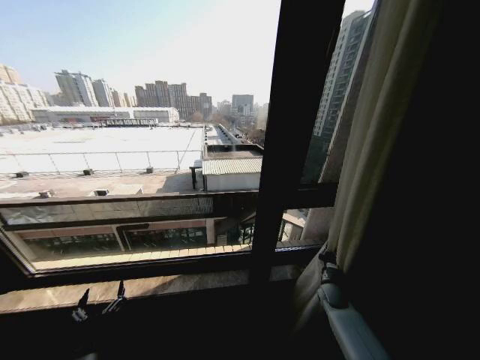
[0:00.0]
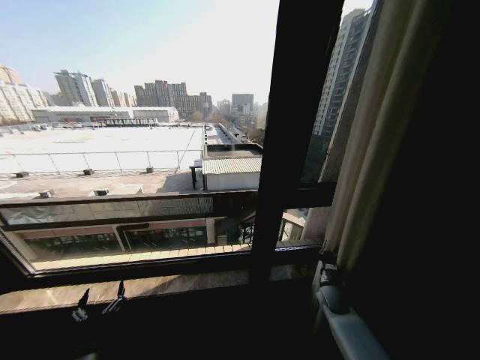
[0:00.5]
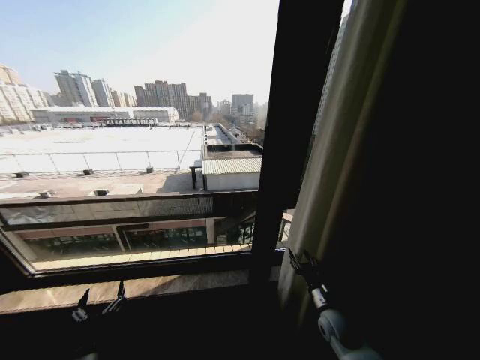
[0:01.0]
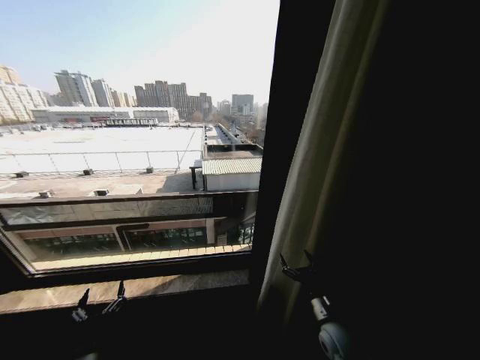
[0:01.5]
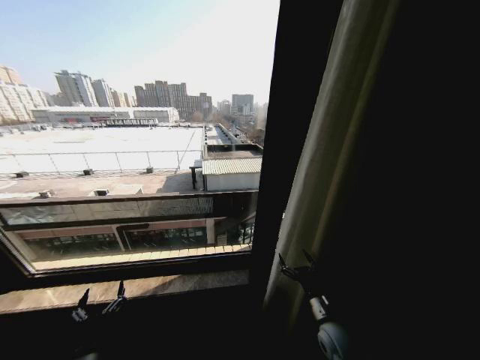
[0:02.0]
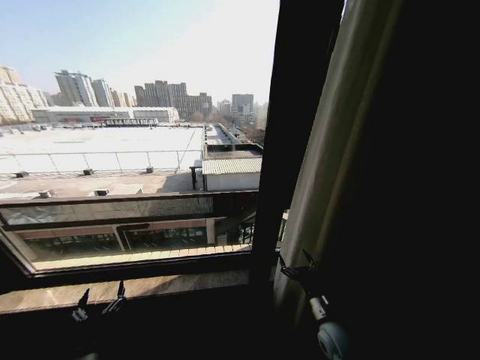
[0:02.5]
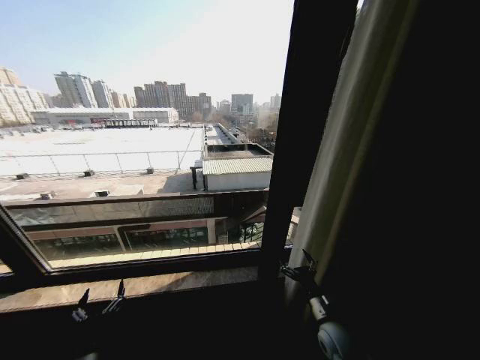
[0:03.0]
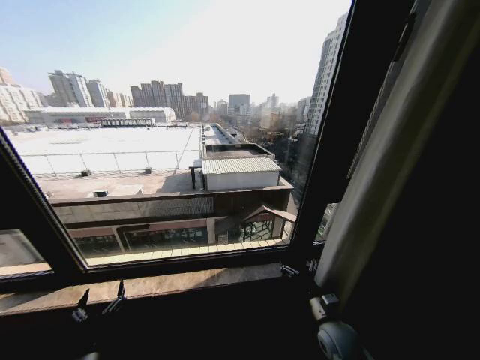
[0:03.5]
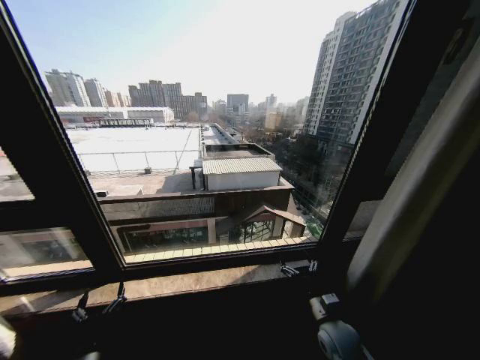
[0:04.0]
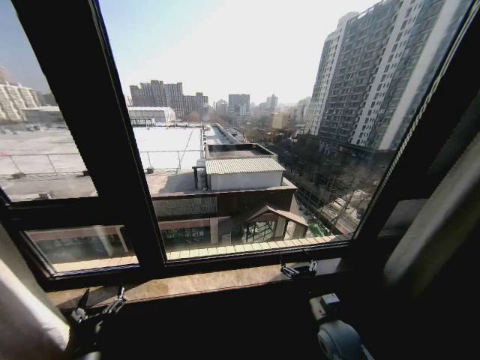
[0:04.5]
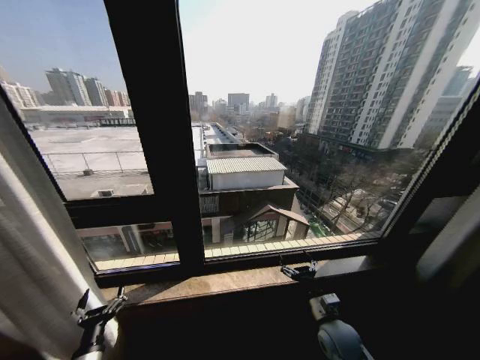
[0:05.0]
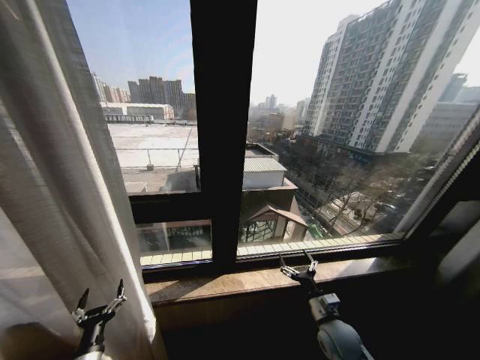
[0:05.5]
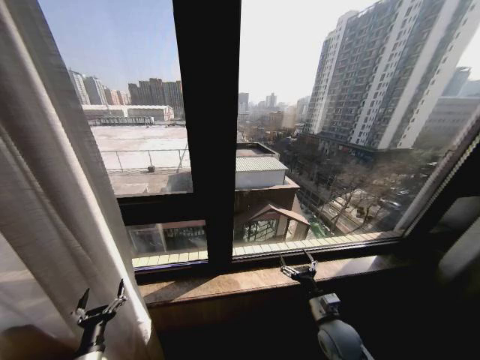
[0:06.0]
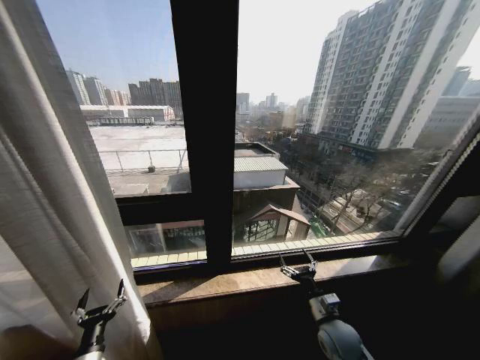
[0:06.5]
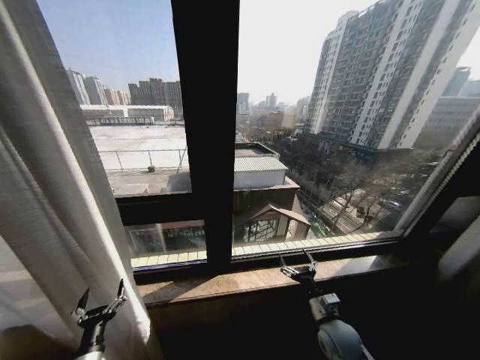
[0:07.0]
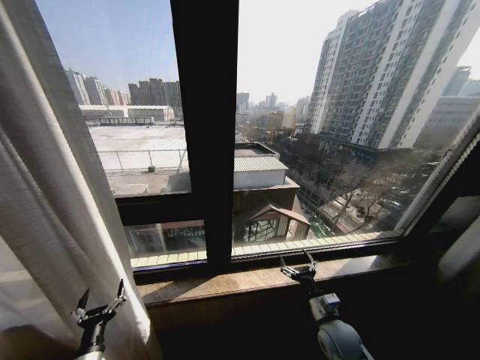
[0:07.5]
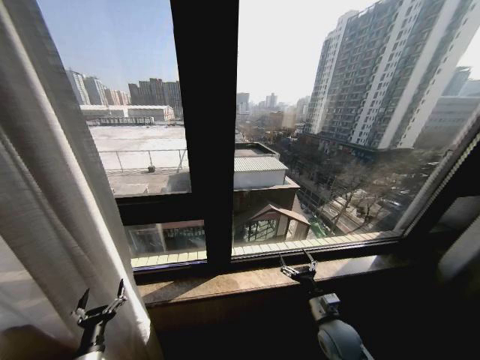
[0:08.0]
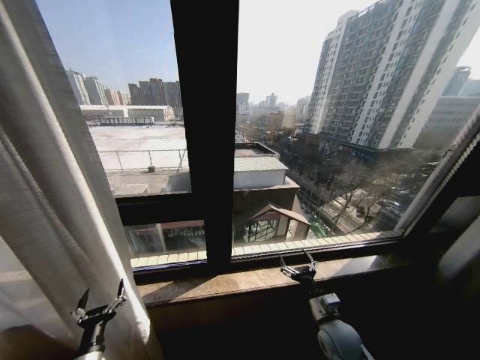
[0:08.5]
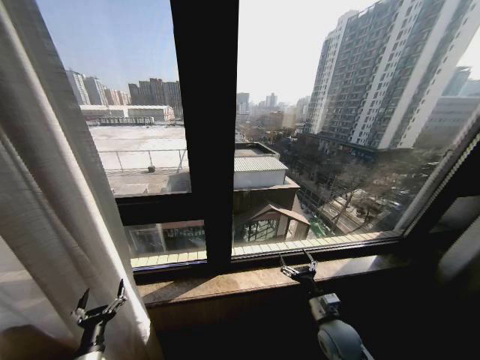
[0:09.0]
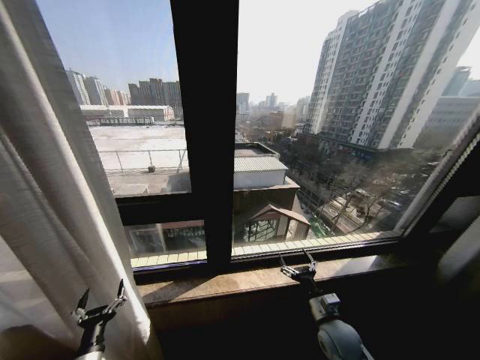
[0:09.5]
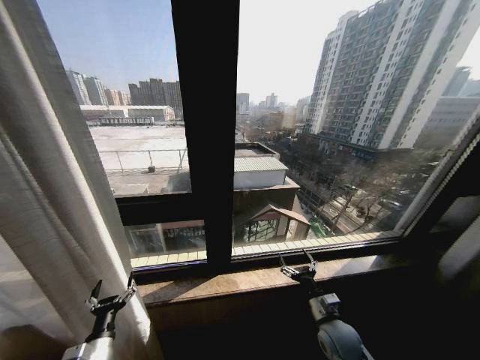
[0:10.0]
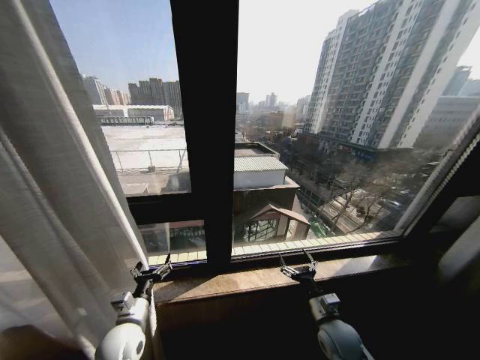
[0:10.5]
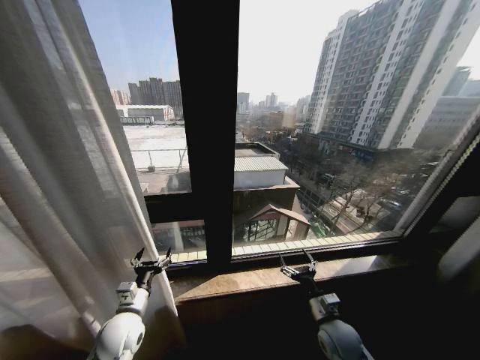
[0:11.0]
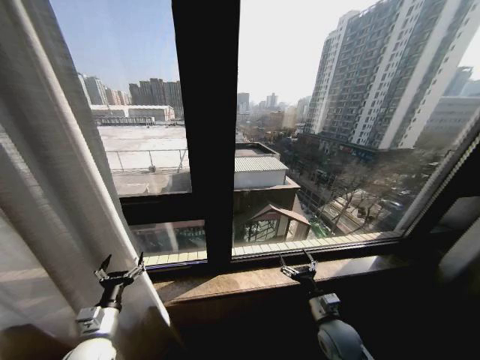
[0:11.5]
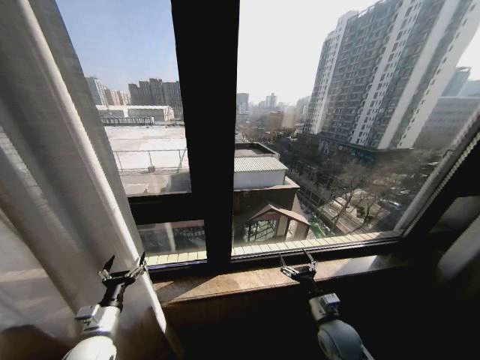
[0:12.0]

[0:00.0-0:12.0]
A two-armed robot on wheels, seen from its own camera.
Task of the whole recording: Open the curtains by pulling them apart, changing their state from closed to fully open.
0:00.0 to 0:02.0: The right gripper shifts about 20 cm backward, to the left and upward, and opens up.
0:06.0 to 0:08.0: Both grippers stay put.
0:08.0 to 0:10.0: The grippers stay close to where they were, moving slightly.
0:10.0 to 0:12.0: The left gripper moves upward, some 5 cm.

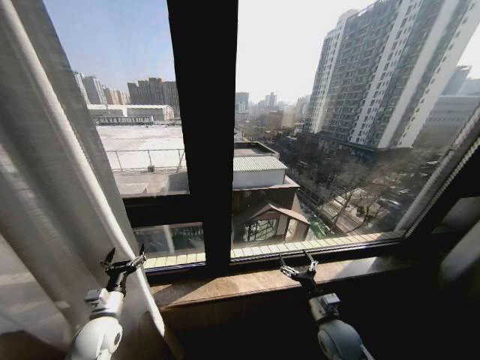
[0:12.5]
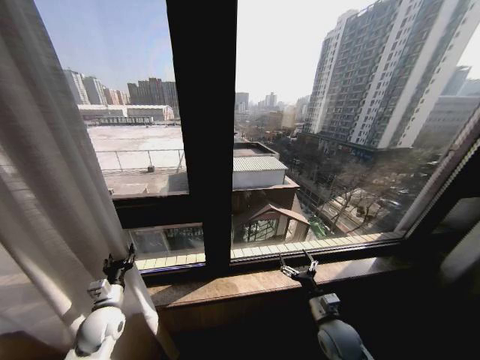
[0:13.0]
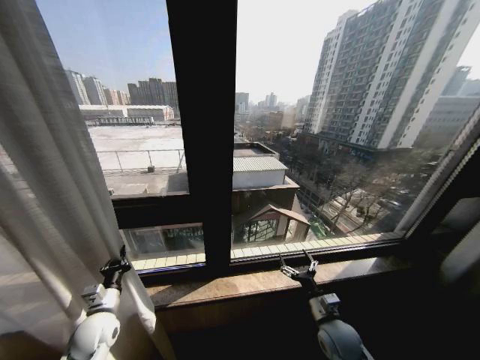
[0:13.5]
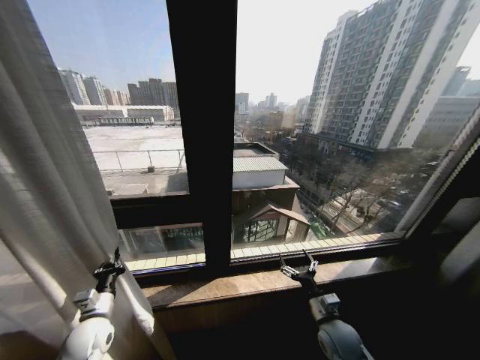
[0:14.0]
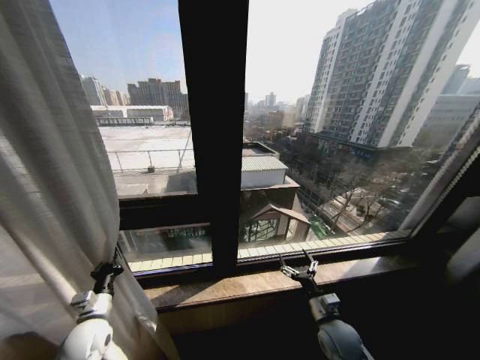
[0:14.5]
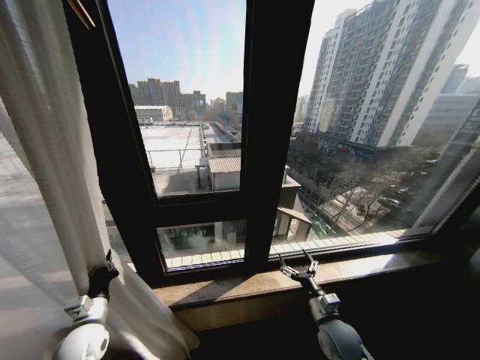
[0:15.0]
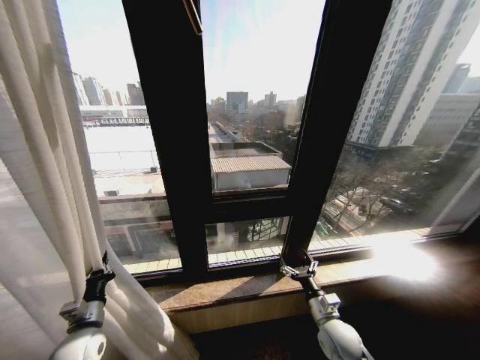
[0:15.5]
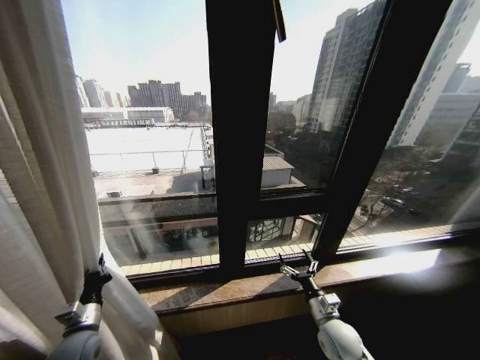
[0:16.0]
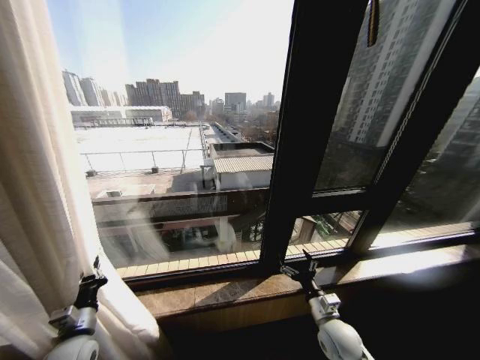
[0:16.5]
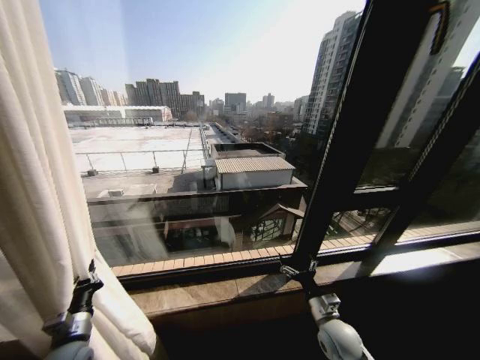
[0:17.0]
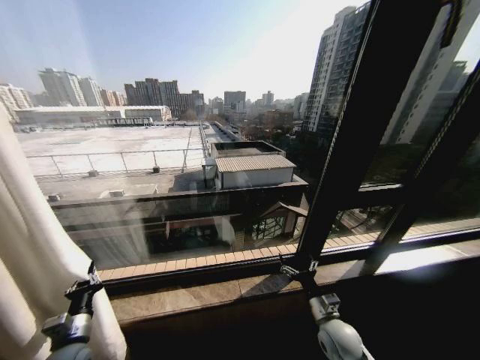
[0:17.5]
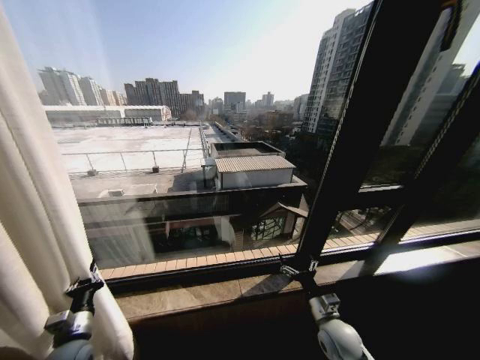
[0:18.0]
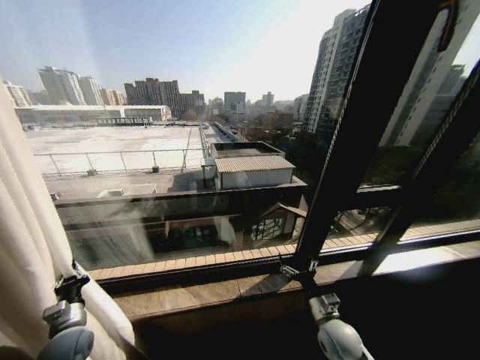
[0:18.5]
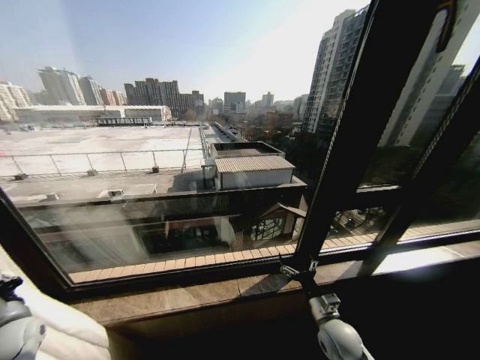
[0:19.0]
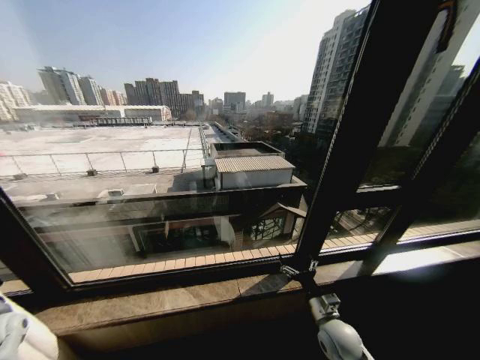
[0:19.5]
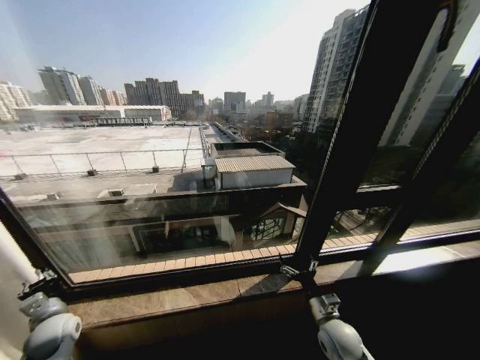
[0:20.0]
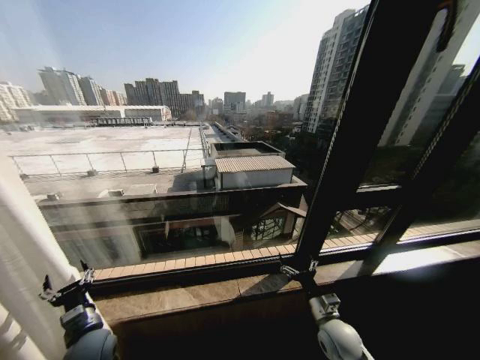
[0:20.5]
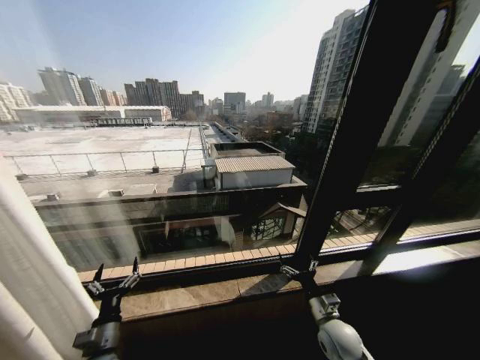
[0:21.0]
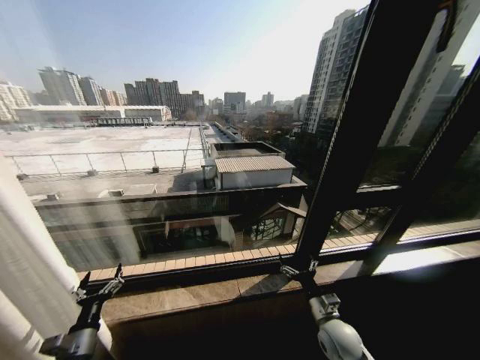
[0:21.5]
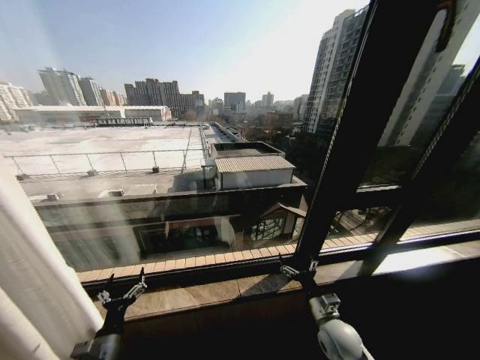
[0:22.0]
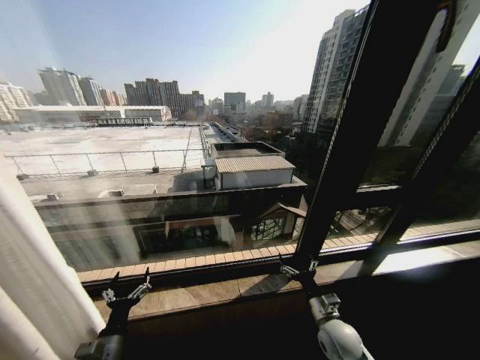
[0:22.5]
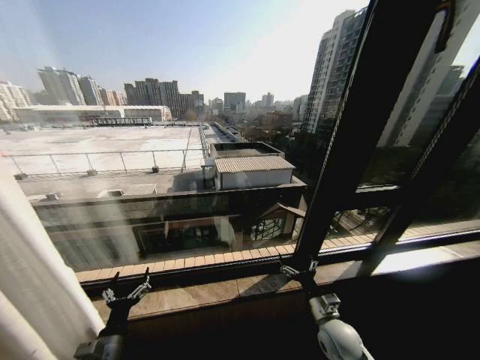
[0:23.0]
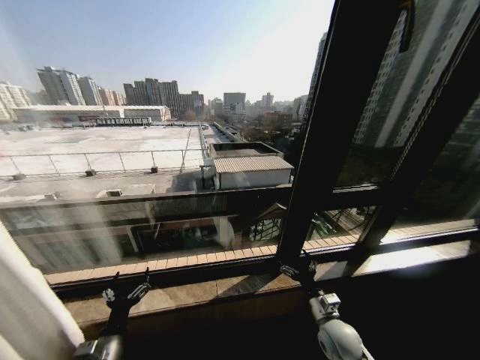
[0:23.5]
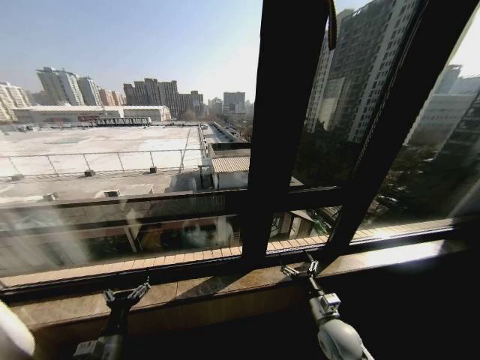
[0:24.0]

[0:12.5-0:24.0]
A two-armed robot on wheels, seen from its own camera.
Task of the whole recording: Open the curtains by pulling them apart, changing their state from closed to fully open.
0:12.5 to 0:14.5: The left gripper closes.
0:18.5 to 0:20.0: The left gripper goes to the left and returns, roughly 20 cm each way.
0:20.0 to 0:22.0: The left gripper swings left and right, approximately 15 cm each way, with 2 reversals, and opens.

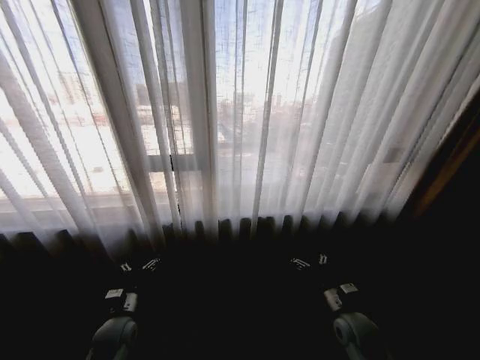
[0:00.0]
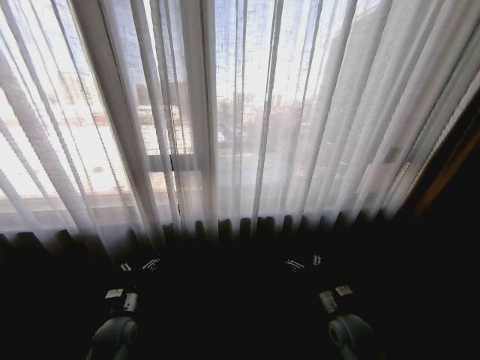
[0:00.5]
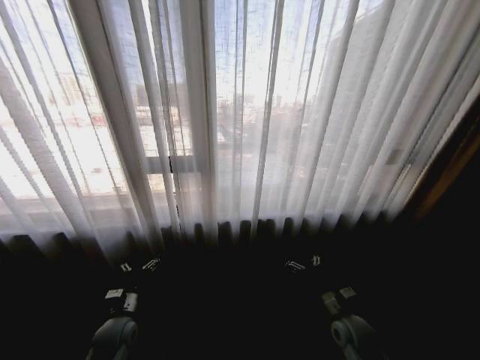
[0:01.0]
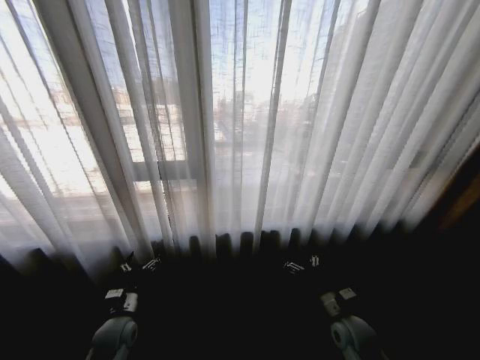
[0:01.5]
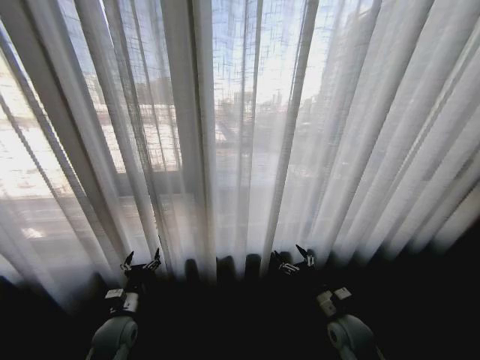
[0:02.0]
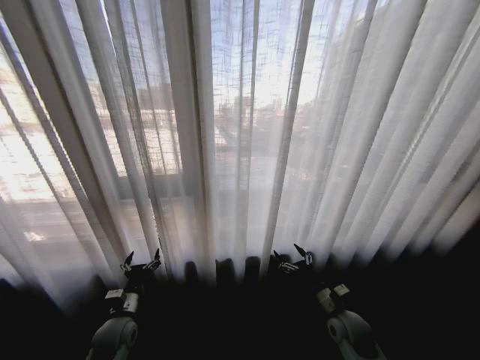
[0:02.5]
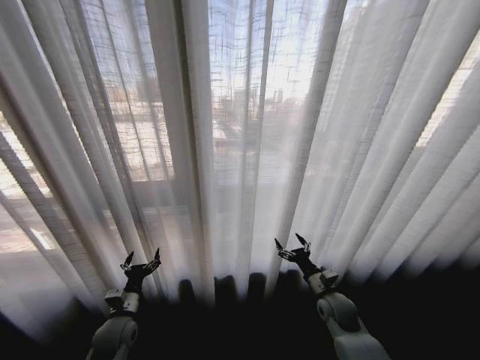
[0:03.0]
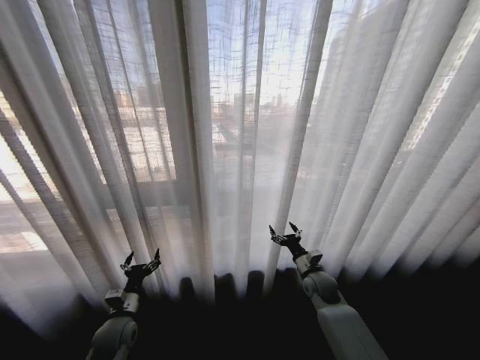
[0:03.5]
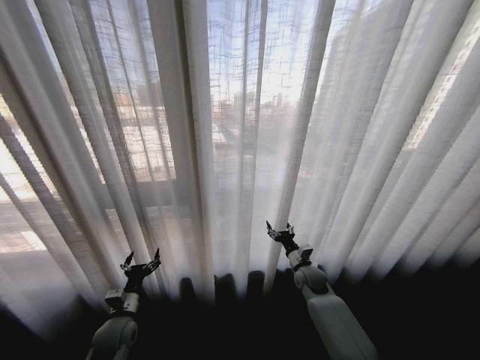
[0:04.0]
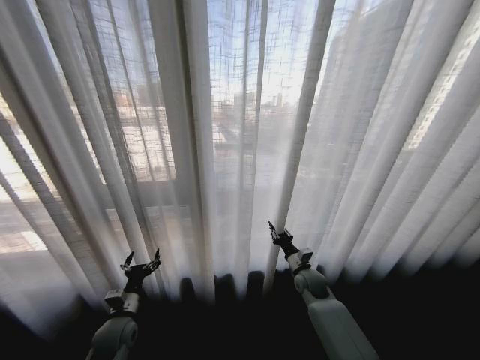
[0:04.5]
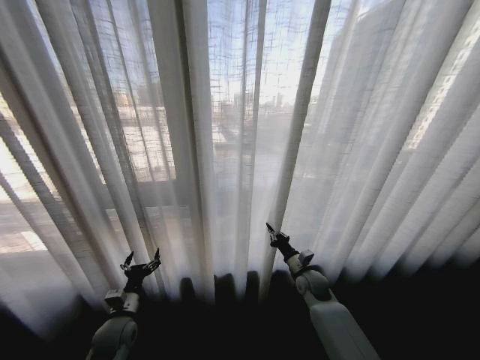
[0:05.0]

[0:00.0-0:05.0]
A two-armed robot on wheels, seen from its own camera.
Task of the whole recording: Open the curtains by pulling them apart, changing their state from closed to fully open.
0:02.5 to 0:05.0: The right gripper travels forward by approximately 15 cm, and closes up.
